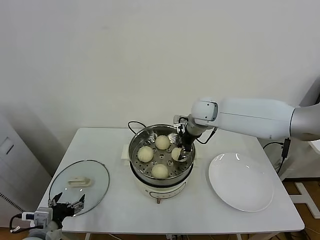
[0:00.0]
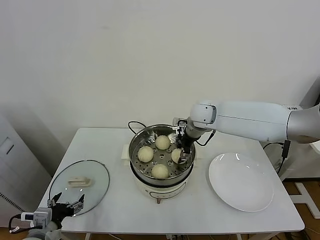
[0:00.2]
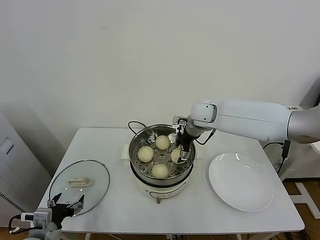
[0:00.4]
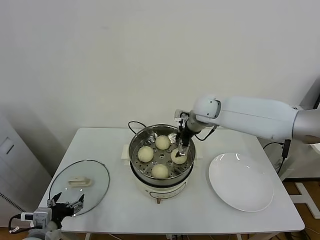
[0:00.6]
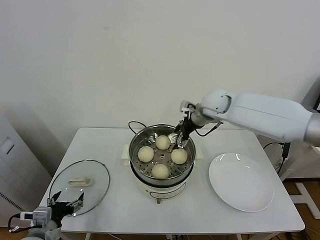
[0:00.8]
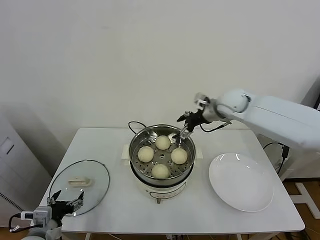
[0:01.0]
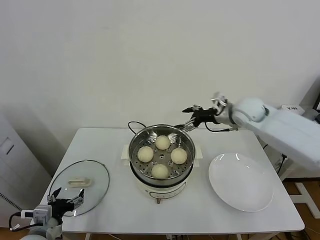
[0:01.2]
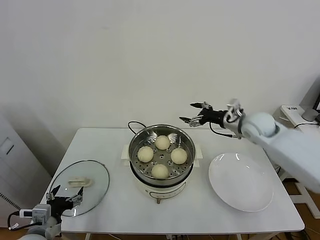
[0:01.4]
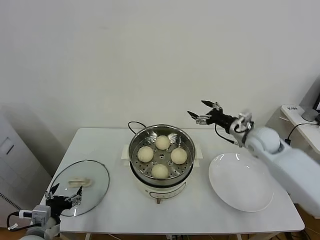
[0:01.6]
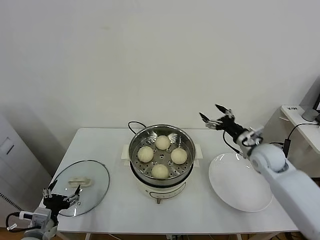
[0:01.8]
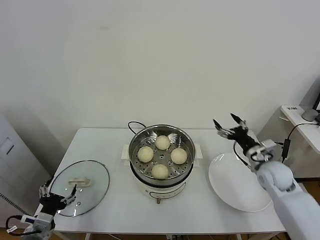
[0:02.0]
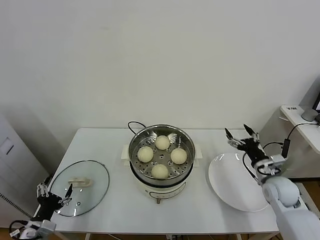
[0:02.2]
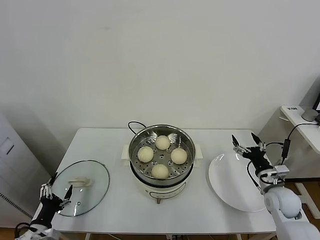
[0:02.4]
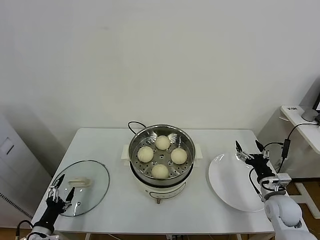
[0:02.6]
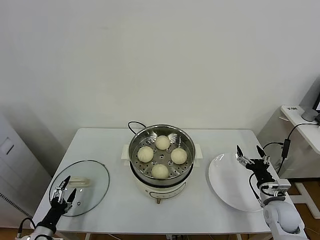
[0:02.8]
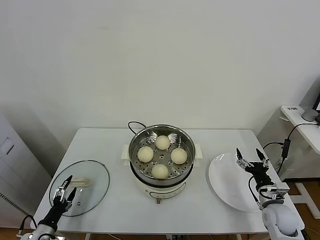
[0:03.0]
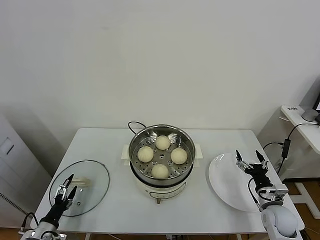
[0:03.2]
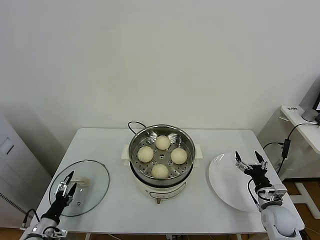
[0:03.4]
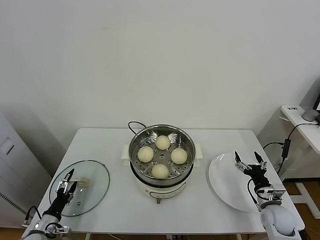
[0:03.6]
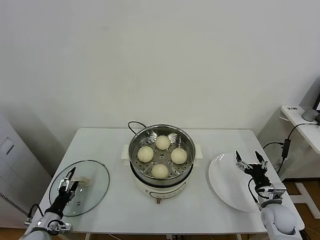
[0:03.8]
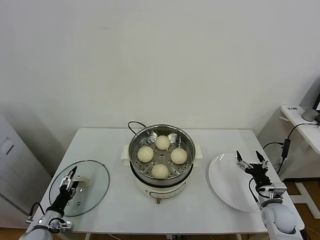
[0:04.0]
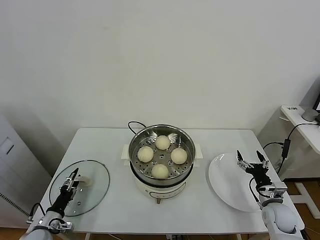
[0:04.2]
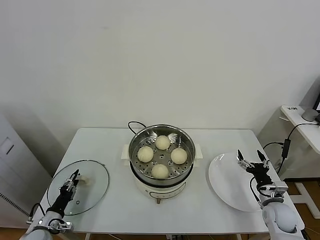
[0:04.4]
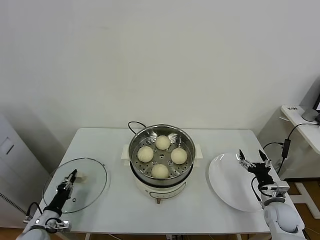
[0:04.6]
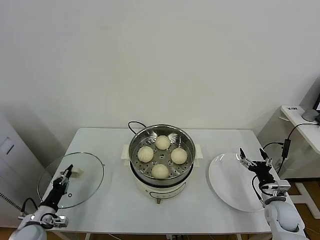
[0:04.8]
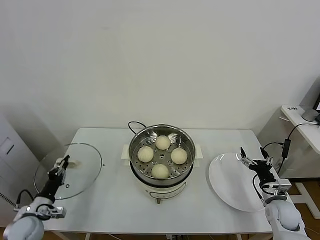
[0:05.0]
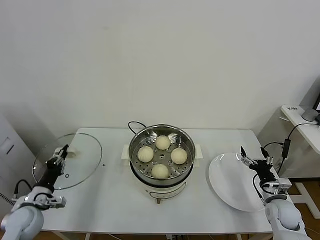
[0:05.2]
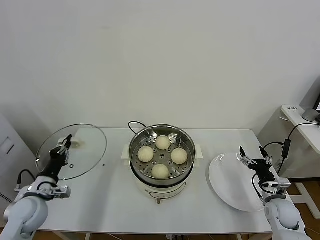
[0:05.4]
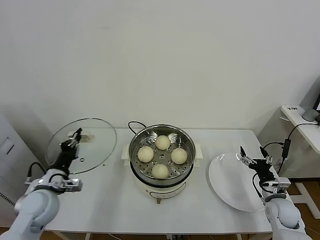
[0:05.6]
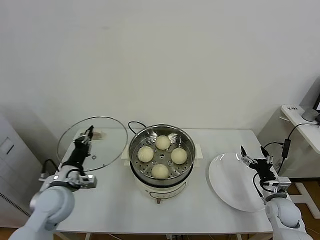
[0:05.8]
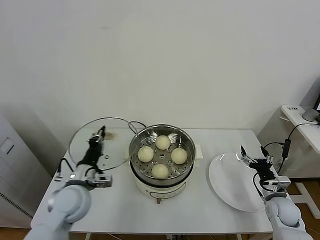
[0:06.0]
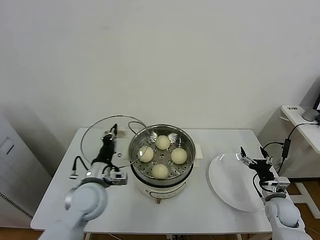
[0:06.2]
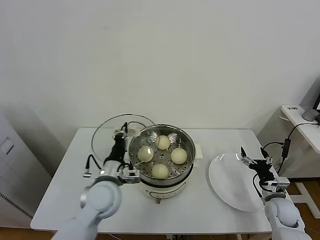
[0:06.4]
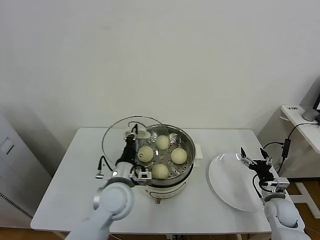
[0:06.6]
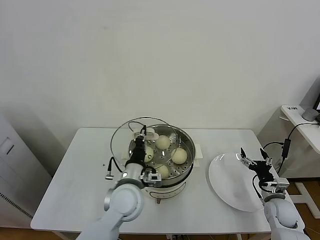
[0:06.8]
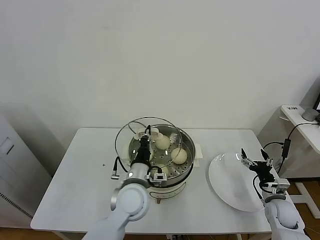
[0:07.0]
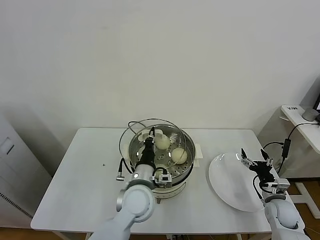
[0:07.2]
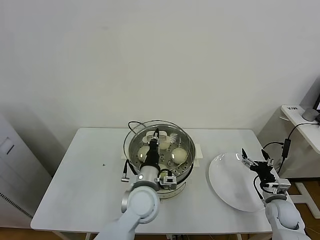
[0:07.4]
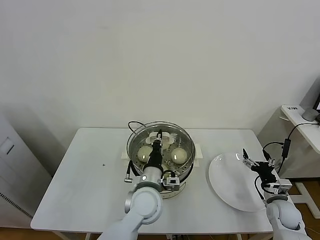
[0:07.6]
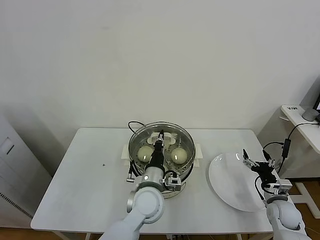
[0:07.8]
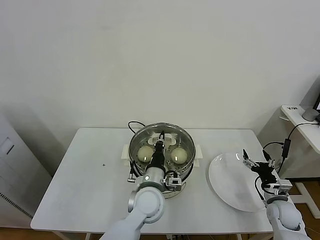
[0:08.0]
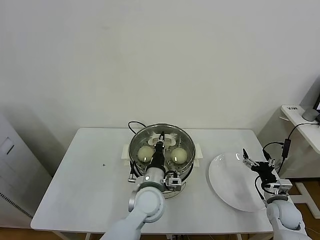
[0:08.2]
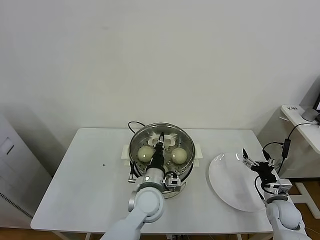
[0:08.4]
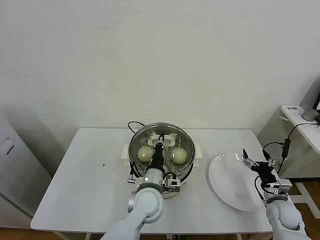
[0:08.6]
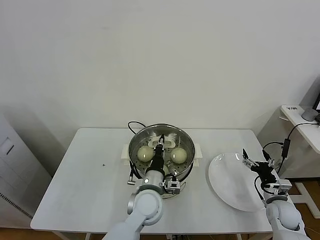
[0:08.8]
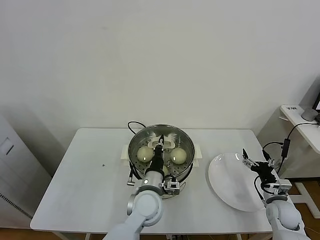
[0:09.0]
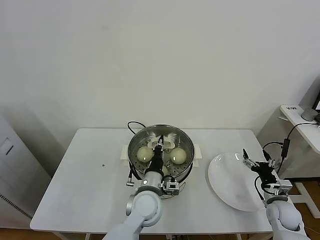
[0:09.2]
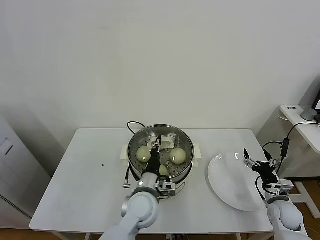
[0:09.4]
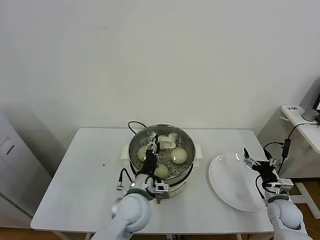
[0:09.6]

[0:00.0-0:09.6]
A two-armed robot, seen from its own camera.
Task of the whole recording: take steamed baozi put them in steamer.
Step, 0:00.8 to 0:04.8: Grasp the pot lid with left gripper.
0:00.0 to 0:01.6: The right gripper moves to the right and backward, about 20 cm, and opens up.
0:01.6 to 0:03.2: The left gripper moves downward and to the left, roughly 15 cm; the right gripper heads downward and backward, covering some 30 cm.
0:03.2 to 0:04.8: The left gripper closes.
0:04.8 to 0:06.4: The left gripper heads to the right and upward, covering some 30 cm.
0:06.4 to 0:08.0: The left gripper heads to the right, covering some 15 cm.
0:08.0 to 0:09.6: The left gripper opens.

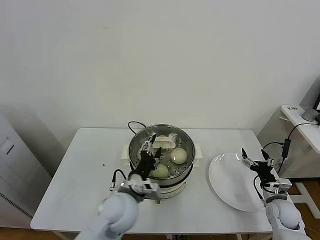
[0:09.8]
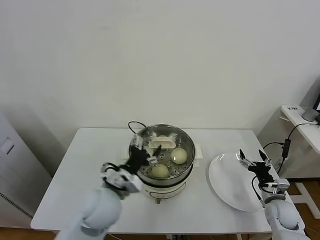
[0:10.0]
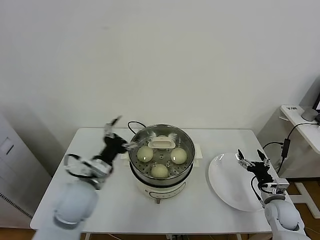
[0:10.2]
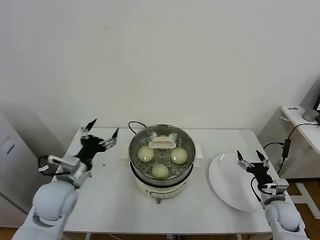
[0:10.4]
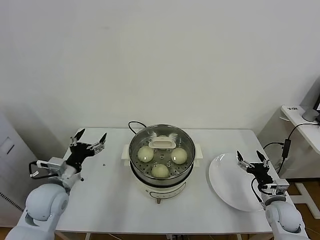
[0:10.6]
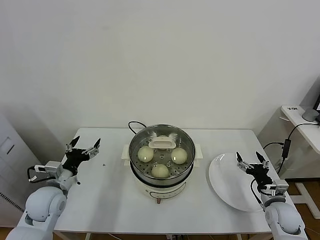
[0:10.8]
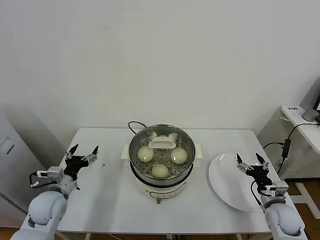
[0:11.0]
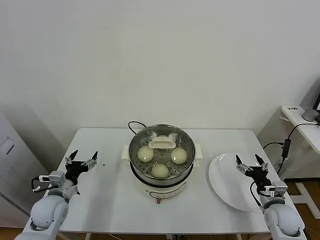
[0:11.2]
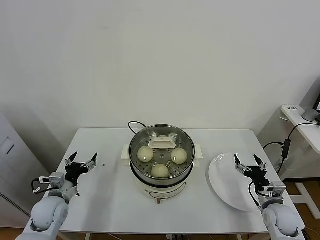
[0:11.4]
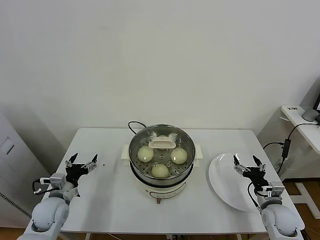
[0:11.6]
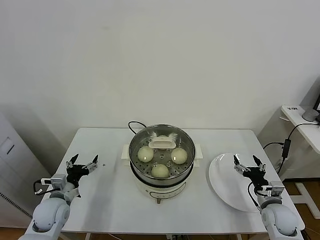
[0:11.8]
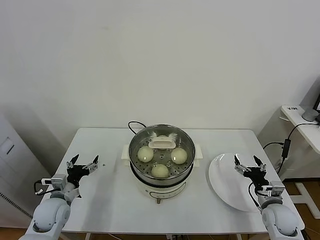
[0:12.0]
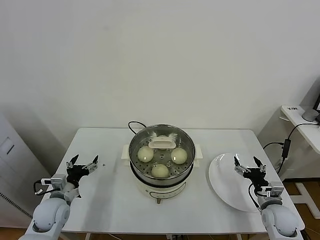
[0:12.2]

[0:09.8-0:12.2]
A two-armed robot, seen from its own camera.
Task of the whole recording: take steamed baozi put them in steamer.
0:09.8 to 0:11.0: The left gripper goes approximately 25 cm to the left, and opens up.
0:11.0 to 0:12.2: There are only small adjustments of the grippers.
